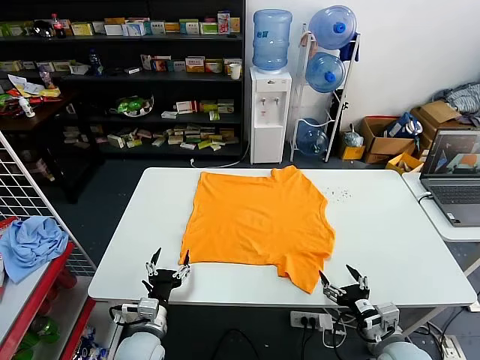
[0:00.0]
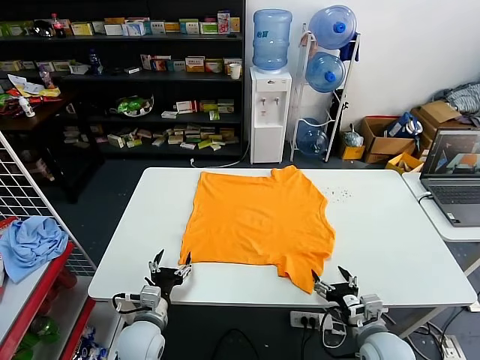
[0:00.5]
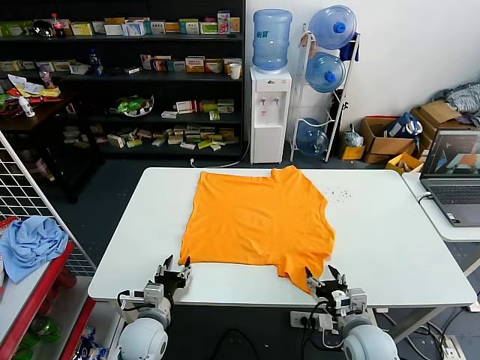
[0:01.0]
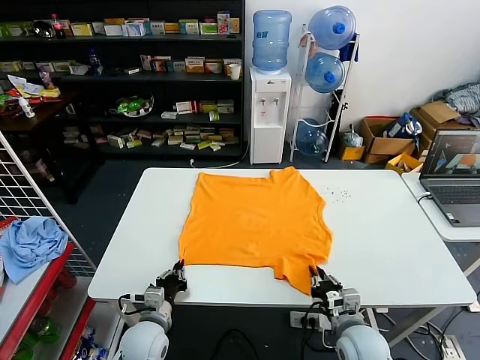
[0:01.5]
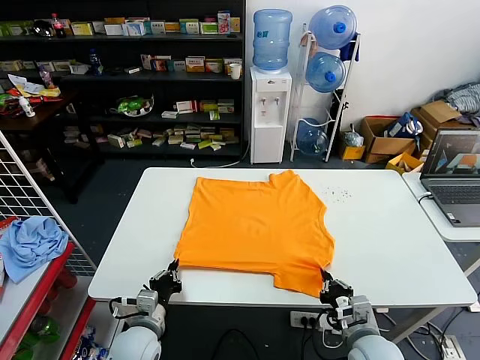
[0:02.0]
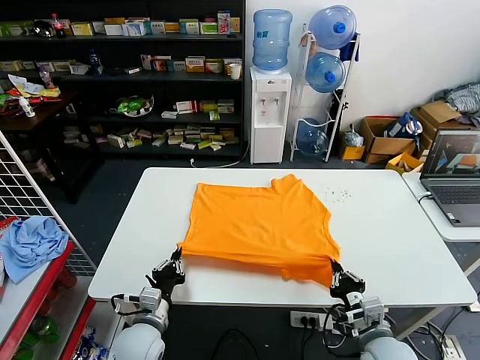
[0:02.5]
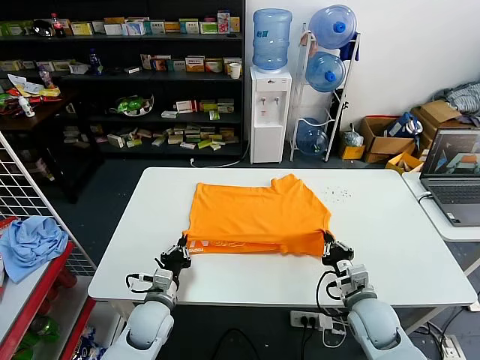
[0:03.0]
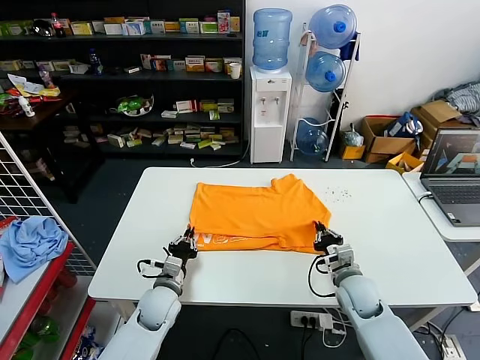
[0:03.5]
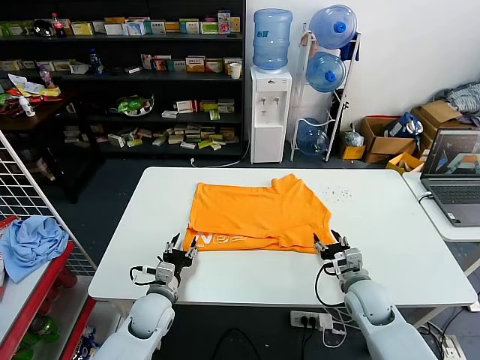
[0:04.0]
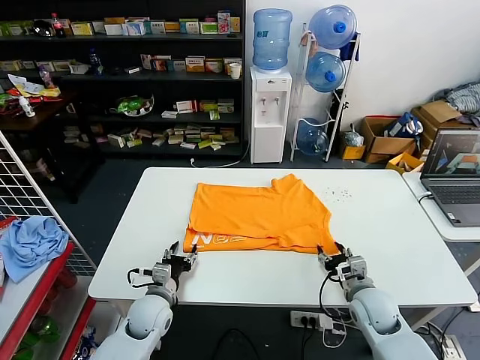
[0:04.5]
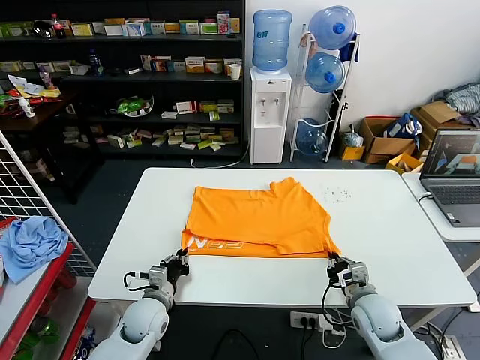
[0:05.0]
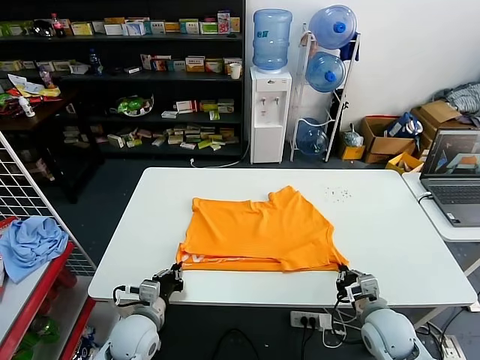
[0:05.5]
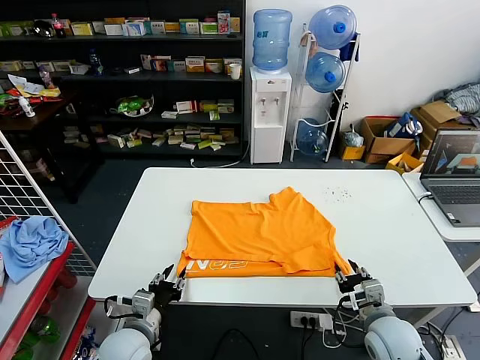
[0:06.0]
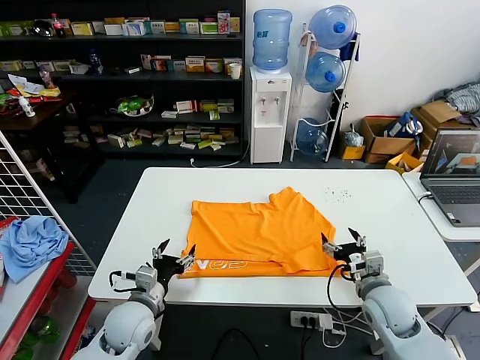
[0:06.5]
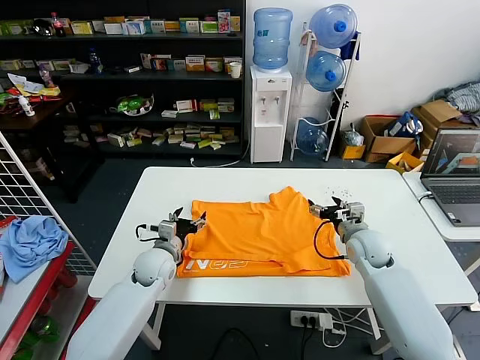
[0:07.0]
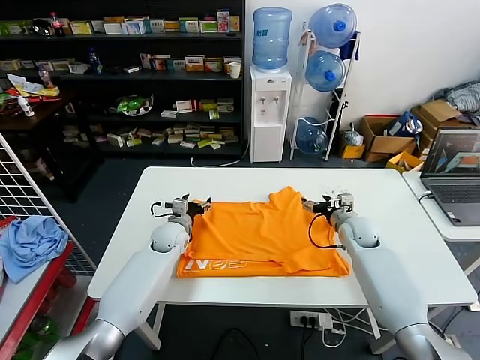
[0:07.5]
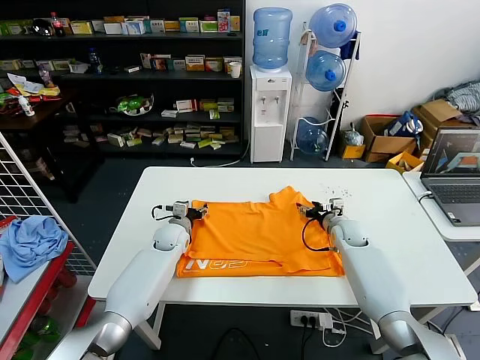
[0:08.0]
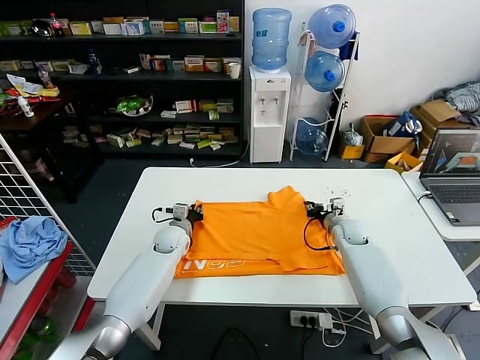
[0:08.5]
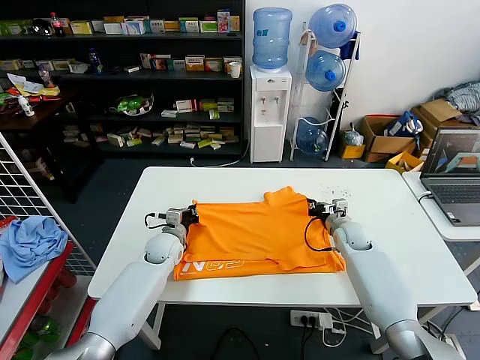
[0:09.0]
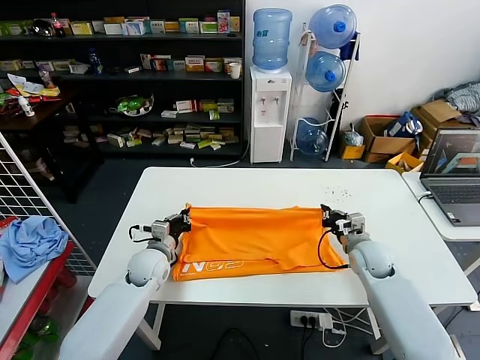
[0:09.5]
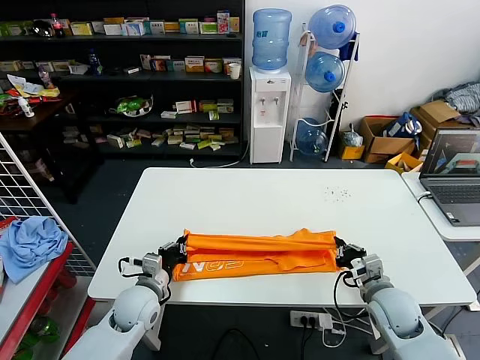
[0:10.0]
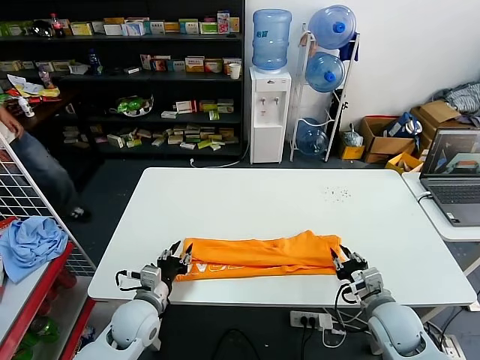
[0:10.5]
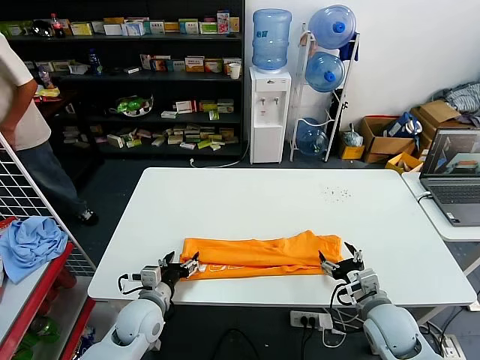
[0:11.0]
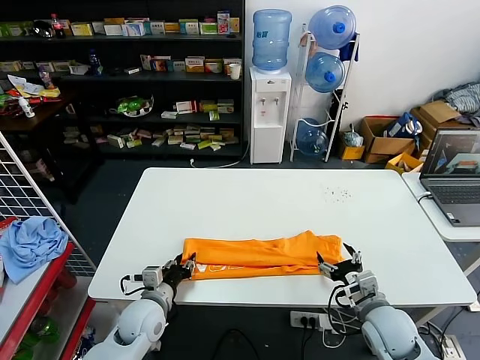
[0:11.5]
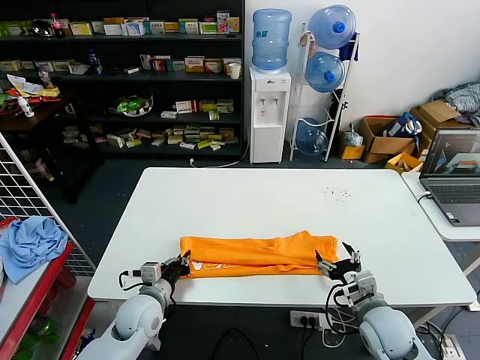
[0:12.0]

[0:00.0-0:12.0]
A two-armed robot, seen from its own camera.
Task of the whole recording: fold and organize the clothes.
Step, 0:00.0 to 0:01.5: use both grippers simultaneously to clamp the lower edge of the clothing fabric.
Step, 0:02.0 to 0:03.5: use both grippers to drag the lower edge of the fabric forward and fold it over the upper edge.
Step, 0:04.0 to 0:06.0: Drag the clothes downward with both gripper.
Step, 0:06.5 to 0:08.5: use both grippers simultaneously to clamp the upper edge of the clothing fabric.
Step, 0:09.0 to 0:10.5: use both grippers to drag the upper edge of the fabric backward and fold it over the lower edge.
Step, 0:11.0 to 0:11.5: use the left gripper to clamp the left edge of the fabric.
0:02.0 to 0:04.0: The left gripper is displaced forward by approximately 10 cm, and opens up. Meanwhile the right gripper shifts approximately 10 cm forward, and opens up.
0:04.0 to 0:06.0: The right gripper goes about 10 cm backward, and closes, then reopens. The left gripper goes about 10 cm backward and upward, and closes and opens again.
0:06.0 to 0:08.0: Both grippers travel together forward, some 30 cm. The left gripper opens up.
0:08.0 to 0:10.0: The two grippers go some 20 cm backward. The right gripper closes its fingers, while the left gripper closes up.
0:10.0 to 0:12.0: The right gripper moves approximately 5 cm, and opens; the left gripper opens and closes again.

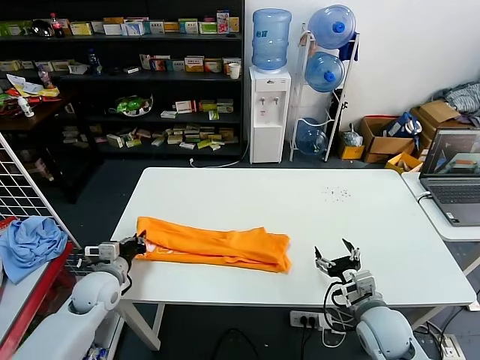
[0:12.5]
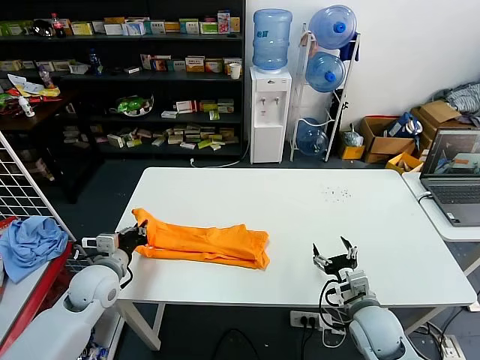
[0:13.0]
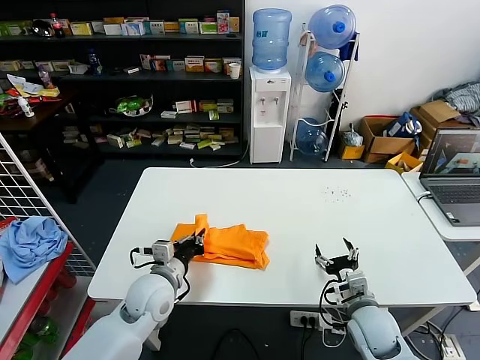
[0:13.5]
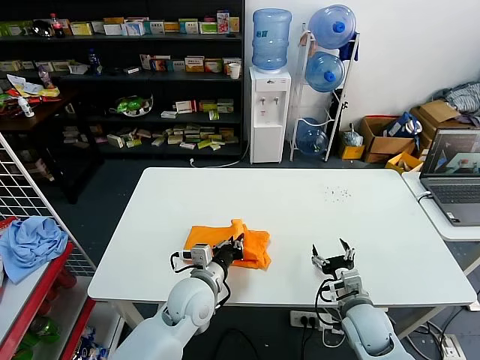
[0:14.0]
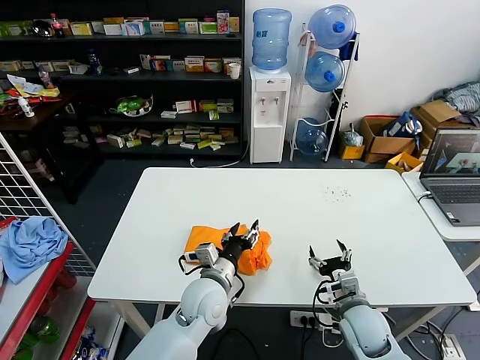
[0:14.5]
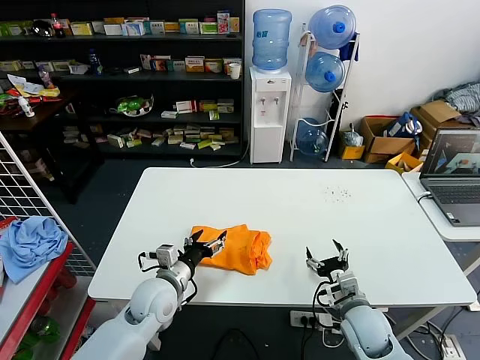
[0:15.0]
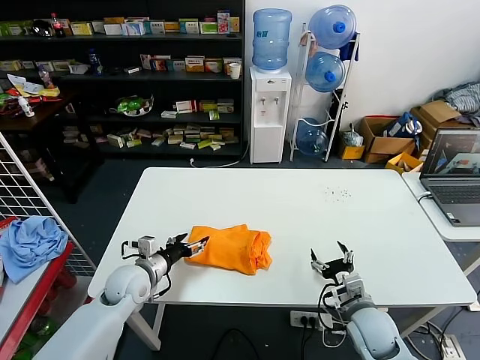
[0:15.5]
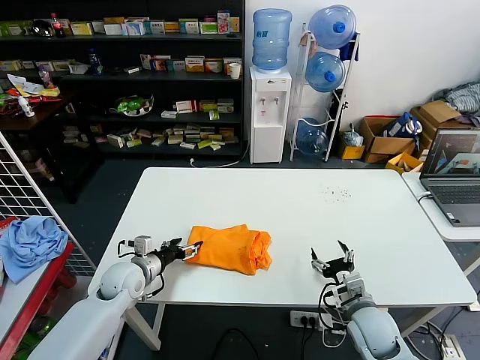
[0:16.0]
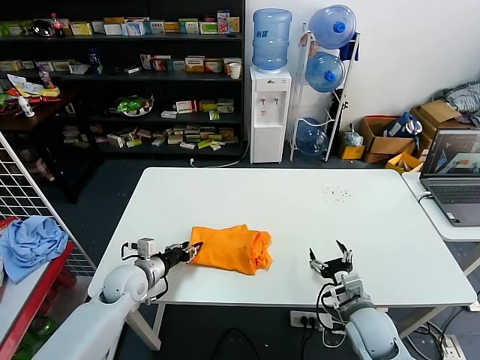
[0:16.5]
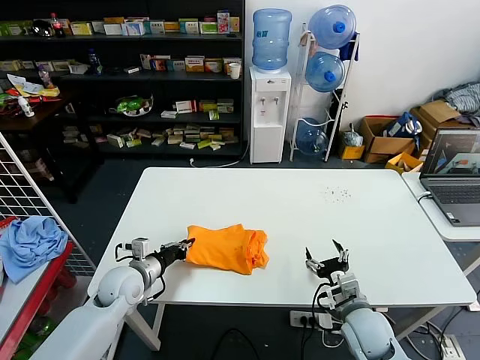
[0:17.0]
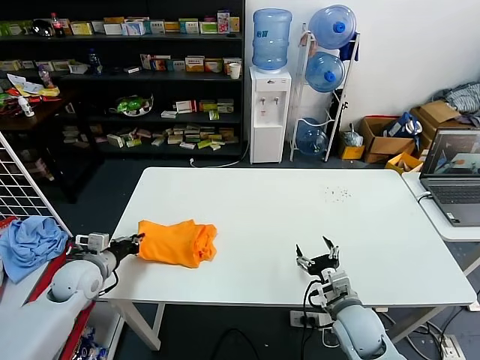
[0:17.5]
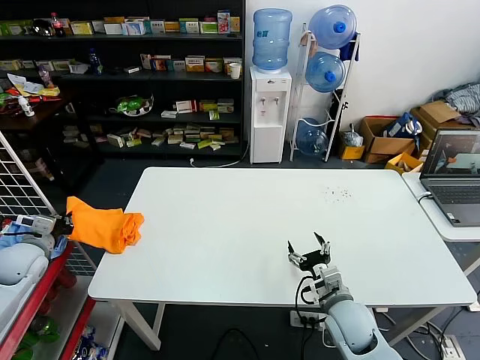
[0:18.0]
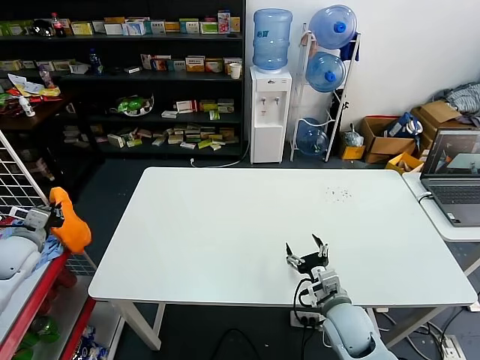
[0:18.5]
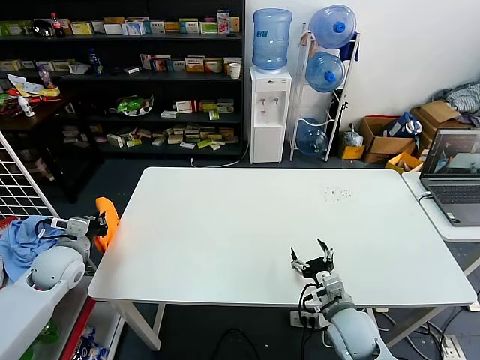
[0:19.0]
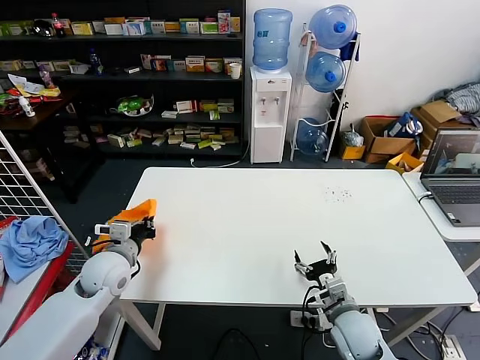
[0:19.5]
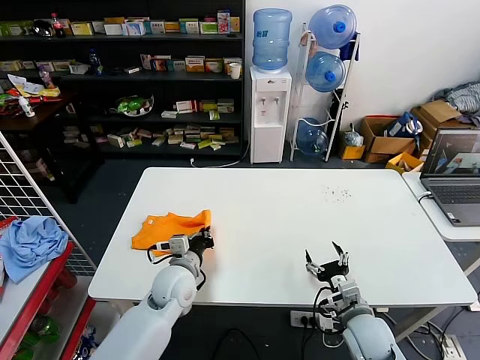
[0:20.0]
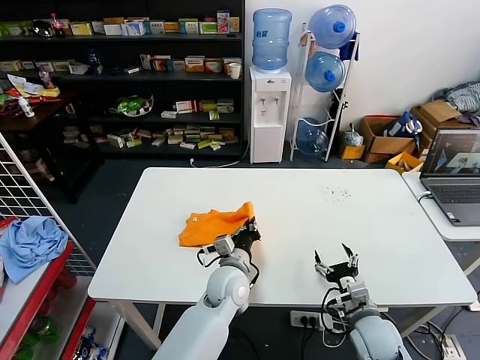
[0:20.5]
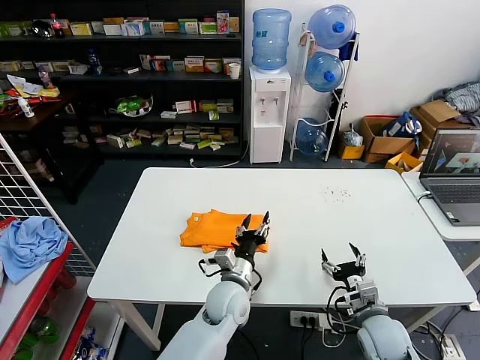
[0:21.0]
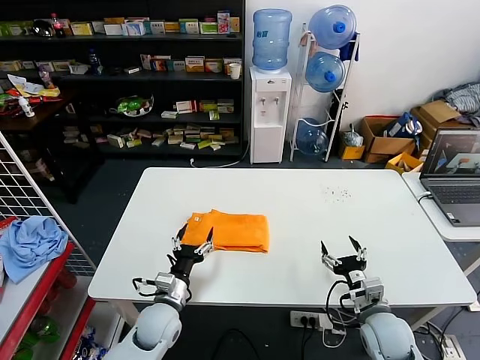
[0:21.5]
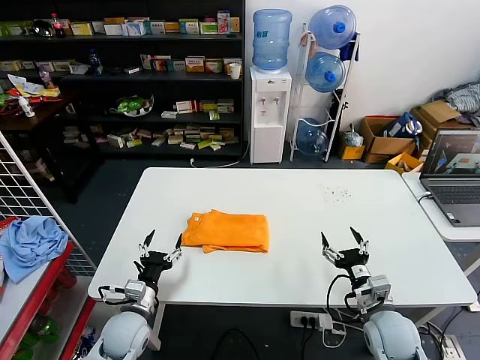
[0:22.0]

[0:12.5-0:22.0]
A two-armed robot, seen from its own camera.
Task of the whole recording: fold and organize the clothes.
Step, 0:12.5 to 0:14.0: use the left gripper to drag the left edge of the fabric to the left and folds it over the right edge.
Step, 0:14.5 to 0:20.5: Flip the folded clothes over with left gripper.
0:12.5 to 0:14.5: The left gripper goes about 25 cm to the right, and opens its fingers.
0:14.5 to 0:16.5: The left gripper is displaced to the left by about 20 cm.
0:16.5 to 0:18.0: The left gripper travels to the left and upward by approximately 20 cm, and closes up.
0:18.0 to 0:20.0: The left gripper moves to the right, about 30 cm.
0:20.0 to 0:22.0: The left gripper travels downward and backward by some 10 cm, goes to the right and returns, about 15 cm each way, and opens.

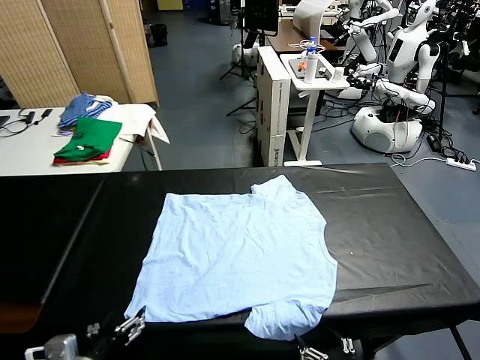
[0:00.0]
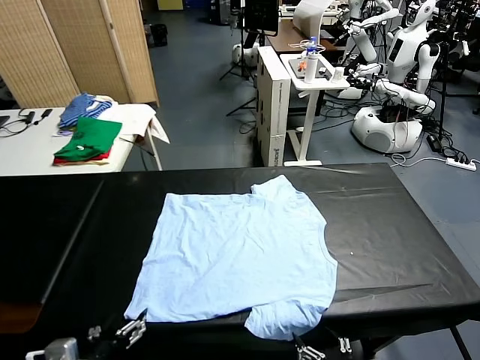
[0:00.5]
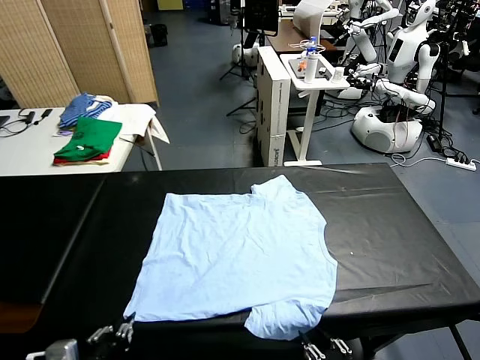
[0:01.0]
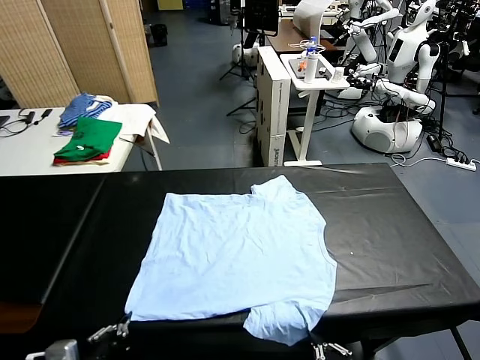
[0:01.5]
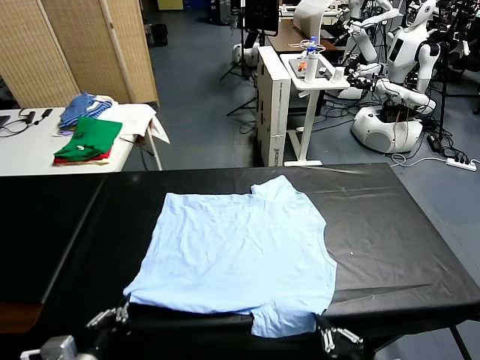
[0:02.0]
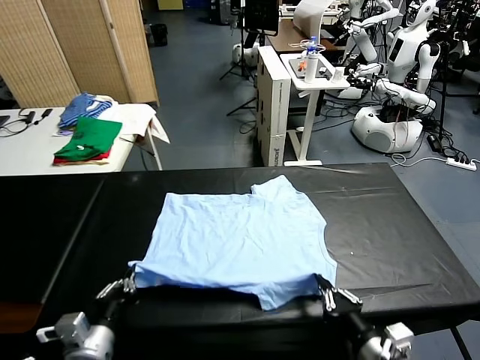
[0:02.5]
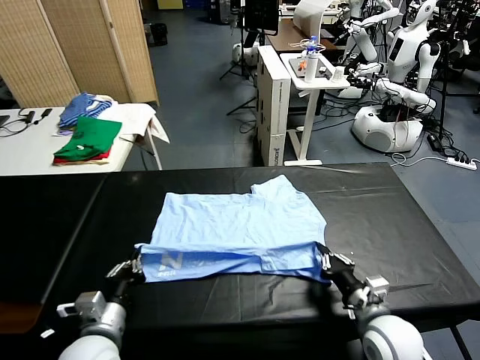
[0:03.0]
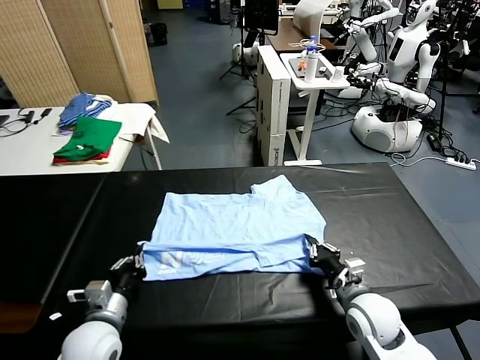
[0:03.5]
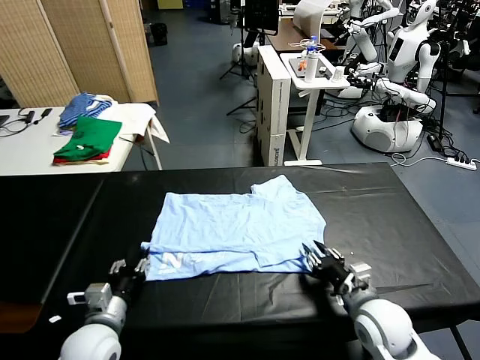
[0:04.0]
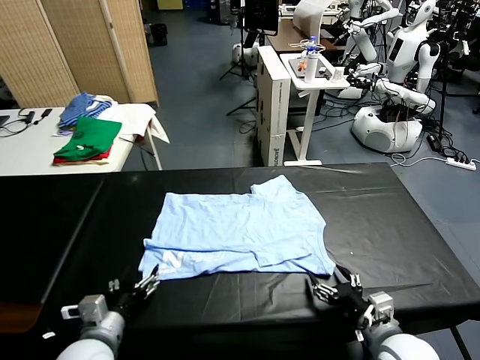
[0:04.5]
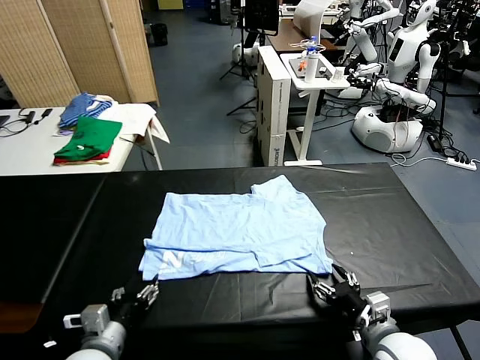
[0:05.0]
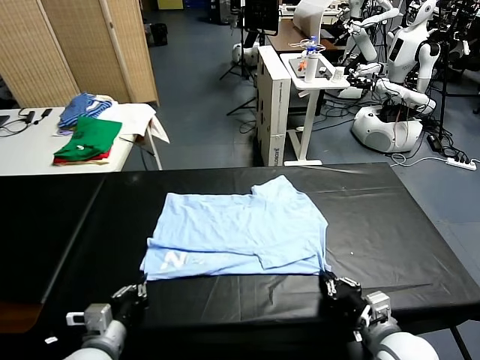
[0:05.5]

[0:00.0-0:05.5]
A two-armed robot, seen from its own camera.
Task of the whole recording: fold and organize the clothes.
Step, 0:00.0 to 0:01.5: use both grippers simultaneously to clamp the lower edge of the clothing fabric.
Step, 0:02.0 to 0:04.0: use both grippers to drag the lower edge of the fabric forward and fold it over the upper edge.
0:02.0 to 0:03.5: The right gripper heads forward, covering approximately 15 cm. The left gripper moves forward and downward, about 15 cm.
0:03.5 to 0:05.5: The left gripper travels backward by some 5 cm, and opens, then closes once more; the right gripper goes approximately 10 cm backward, and opens, then closes once more.
